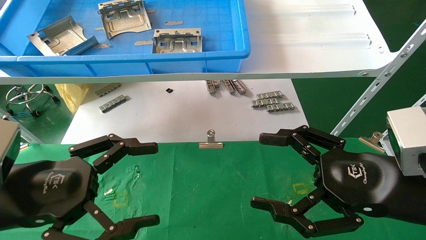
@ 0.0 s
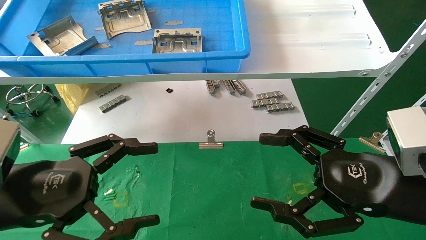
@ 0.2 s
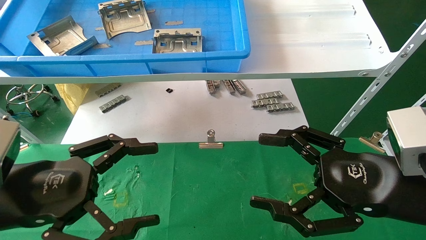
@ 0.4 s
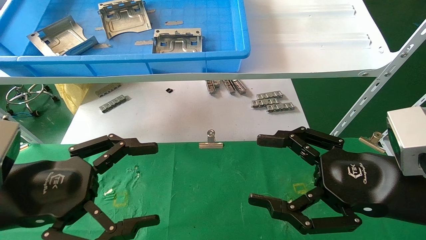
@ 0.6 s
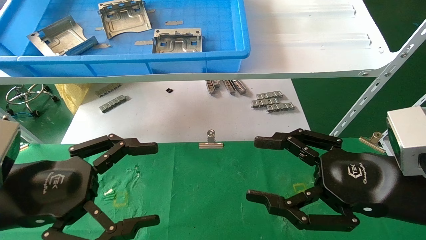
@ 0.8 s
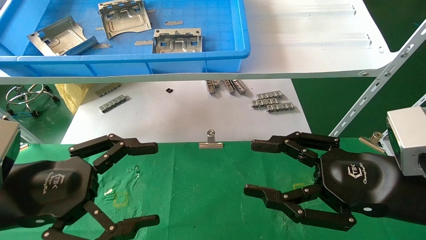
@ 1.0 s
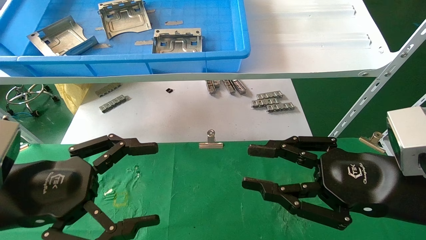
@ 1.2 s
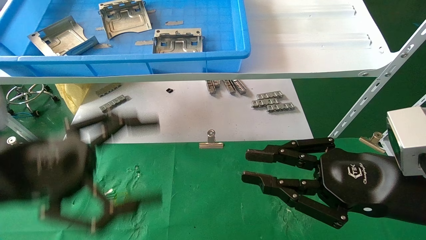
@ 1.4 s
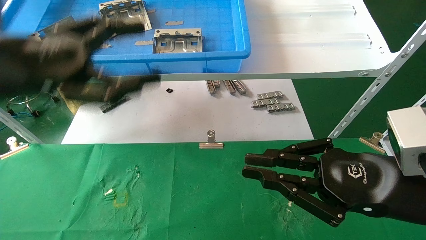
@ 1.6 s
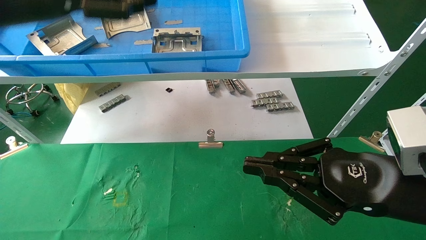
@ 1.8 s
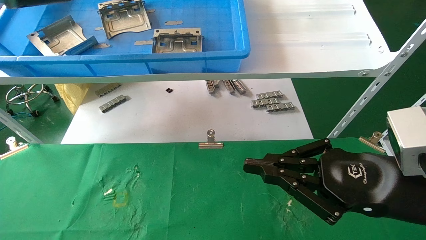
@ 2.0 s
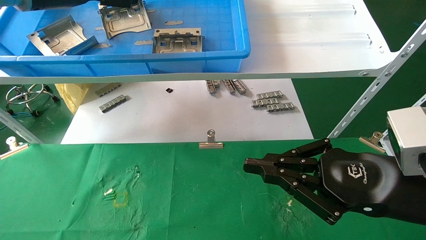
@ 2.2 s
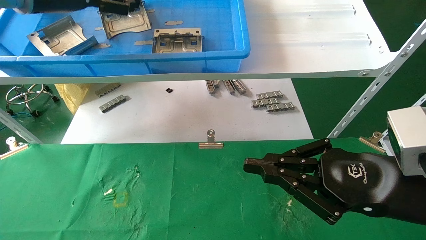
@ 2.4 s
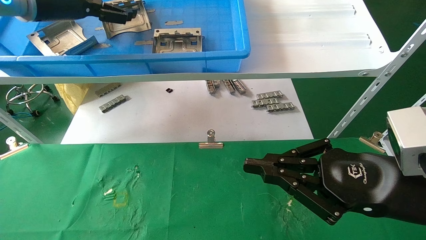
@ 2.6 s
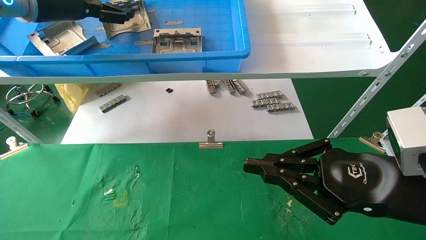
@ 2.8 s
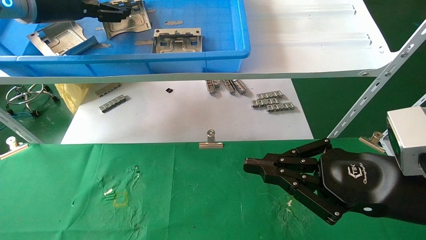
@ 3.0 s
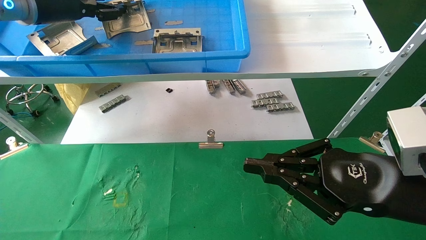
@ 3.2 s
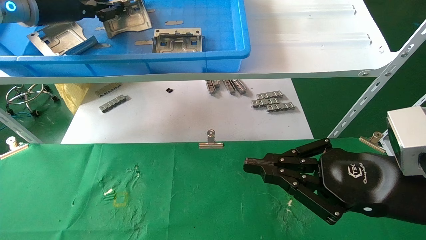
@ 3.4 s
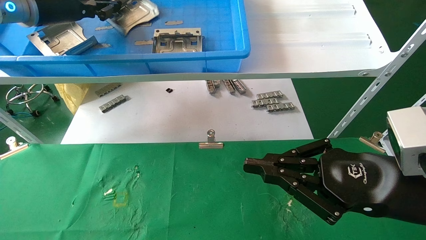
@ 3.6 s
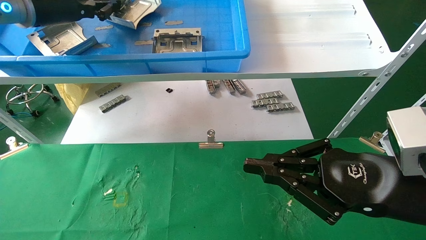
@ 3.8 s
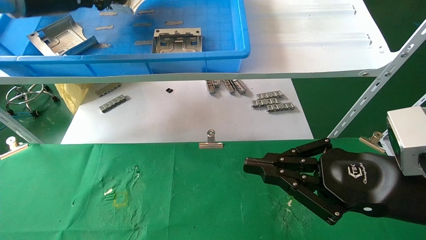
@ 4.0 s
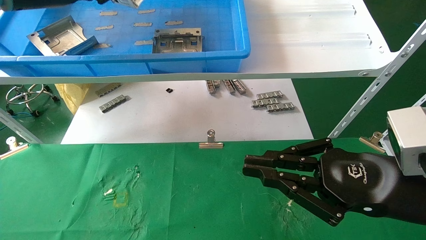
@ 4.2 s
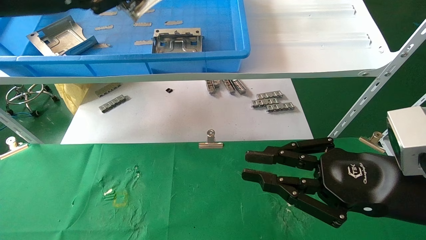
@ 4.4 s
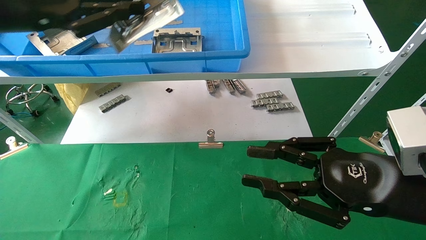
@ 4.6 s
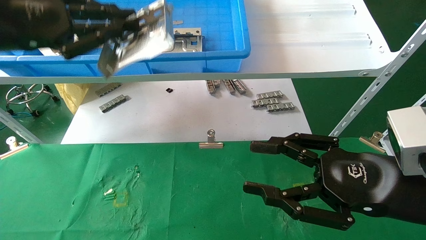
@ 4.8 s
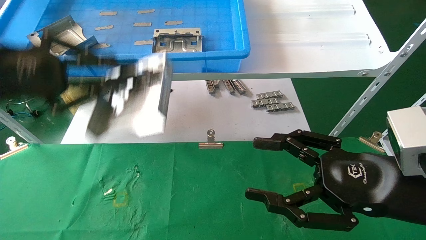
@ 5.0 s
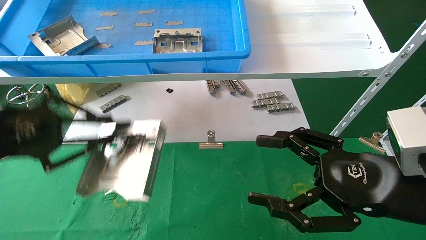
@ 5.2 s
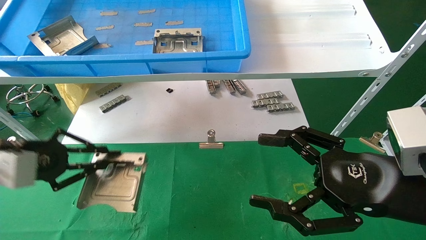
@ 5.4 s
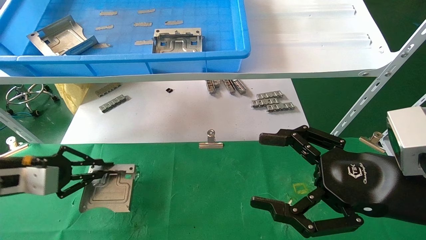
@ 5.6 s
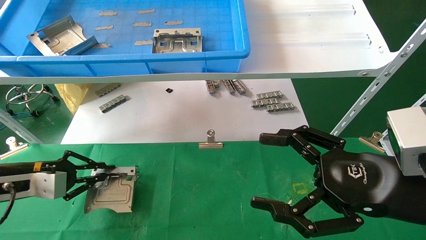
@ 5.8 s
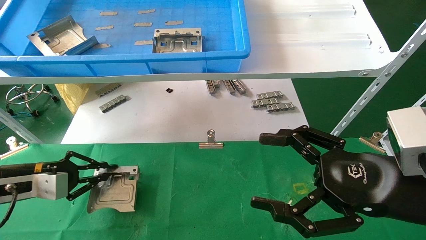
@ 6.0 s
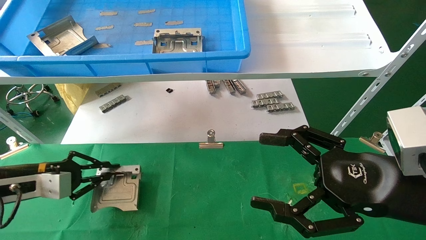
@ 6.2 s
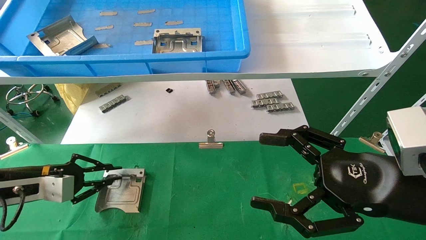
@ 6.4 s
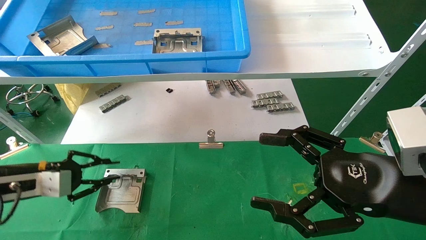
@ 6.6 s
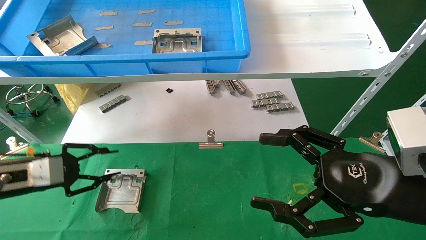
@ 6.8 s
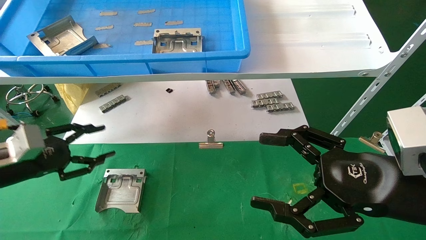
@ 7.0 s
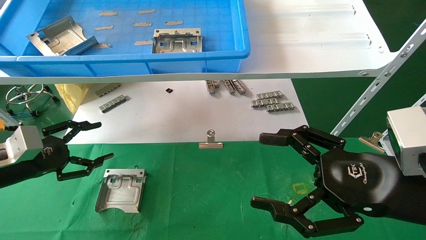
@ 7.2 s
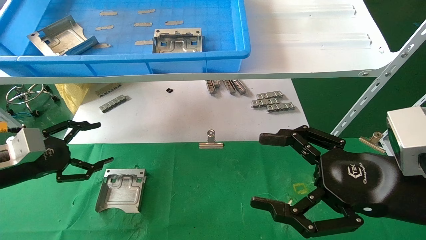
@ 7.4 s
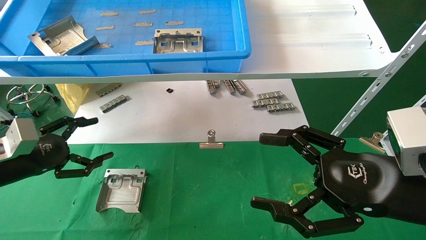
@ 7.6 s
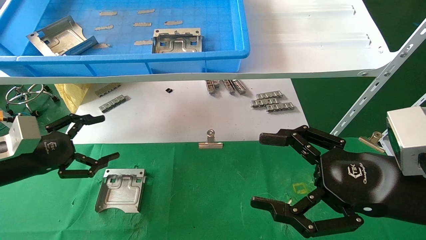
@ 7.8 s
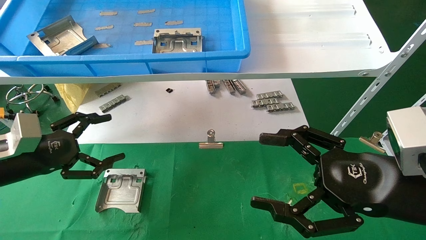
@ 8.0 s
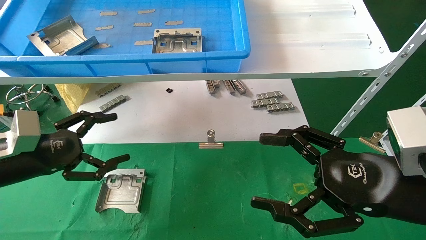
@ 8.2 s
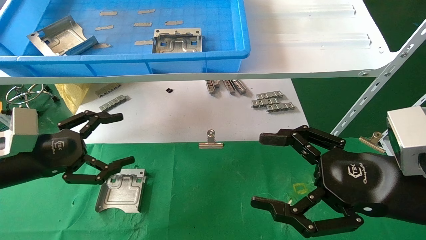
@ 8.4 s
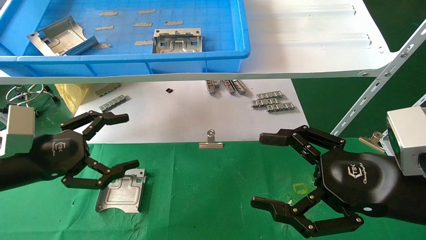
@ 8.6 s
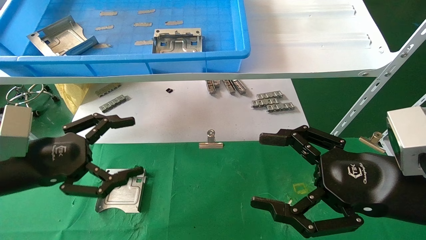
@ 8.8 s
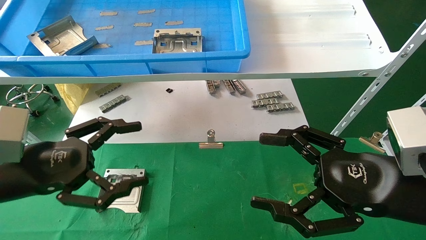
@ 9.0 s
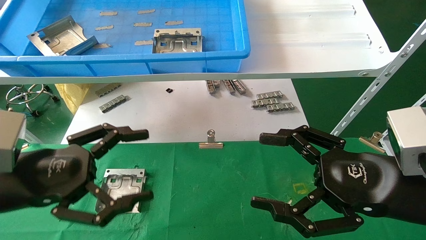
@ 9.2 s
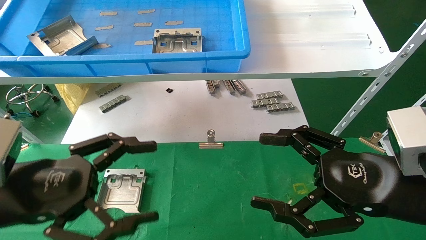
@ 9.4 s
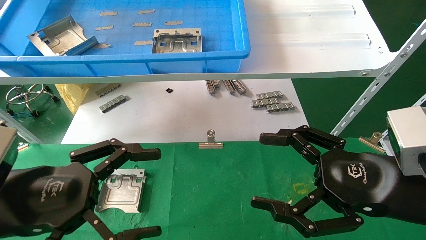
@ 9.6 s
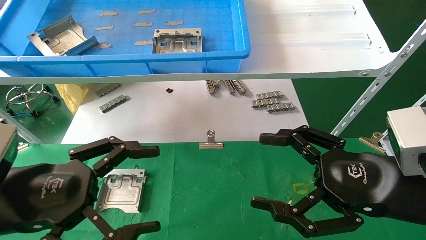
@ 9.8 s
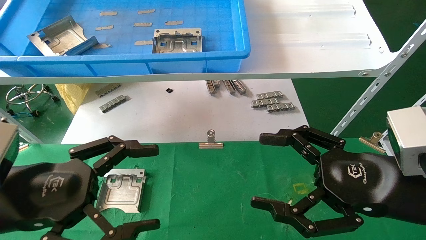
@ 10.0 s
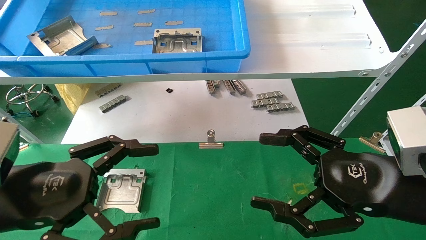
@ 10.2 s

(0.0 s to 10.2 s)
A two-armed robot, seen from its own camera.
Task of the whole recording: use the mechanical arm to pick up the parts and place them on the table.
Step, 1.6 s - 4.4 s: Pick up the hard drive bracket from the feeding area.
Step, 4.6 s - 7.0 s: Place the hard drive bracket into the box.
0.0 s - 1.4 s: The right gripper closes up. The left gripper goes about 5 cm upward.
1.4 s - 3.0 s: The right gripper closes, while the left gripper travels forward and upward by roughly 25 cm.
3.0 s - 4.4 s: The left gripper shifts approximately 10 cm backward, and closes its fingers.
4.4 s - 5.8 s: The right gripper opens up. Meanwhile the left gripper moves downward, roughly 30 cm.
5.8 s - 7.2 s: The left gripper opens its fingers.
7.2 s - 8.8 s: The left gripper moves to the right and backward, some 10 cm, and opens.
8.8 s - 10.2 s: The left gripper moves backward, about 5 cm.
